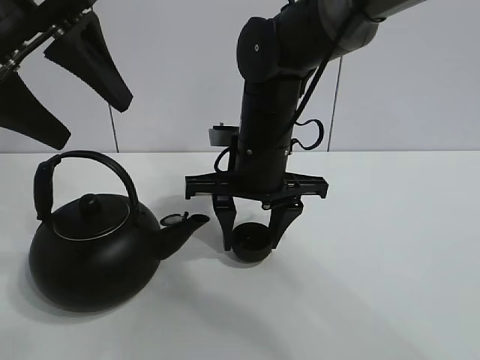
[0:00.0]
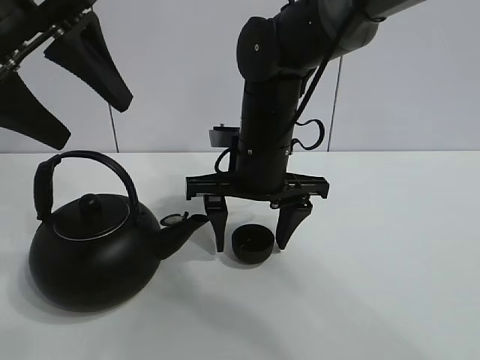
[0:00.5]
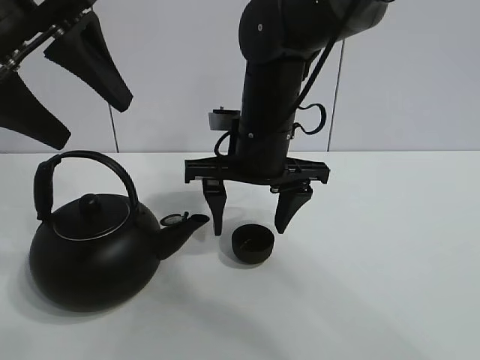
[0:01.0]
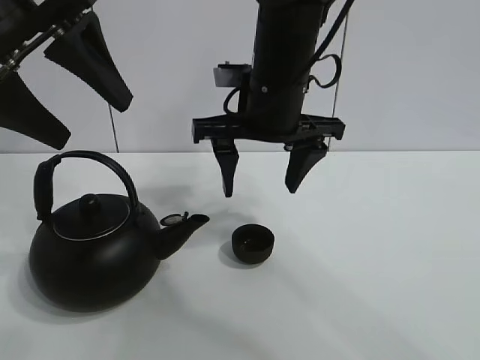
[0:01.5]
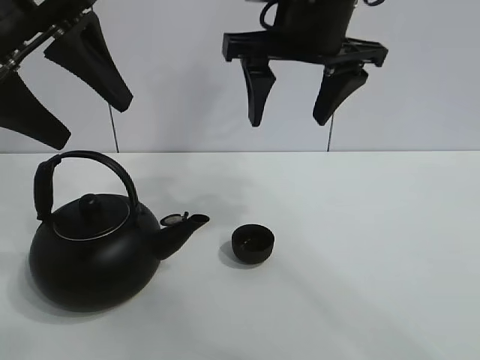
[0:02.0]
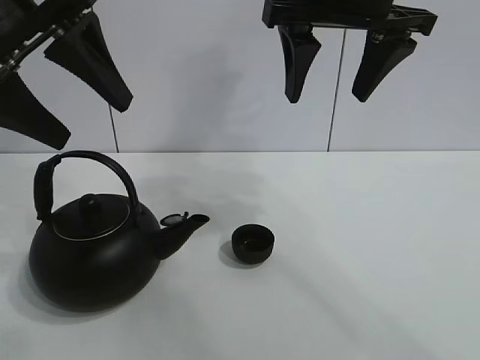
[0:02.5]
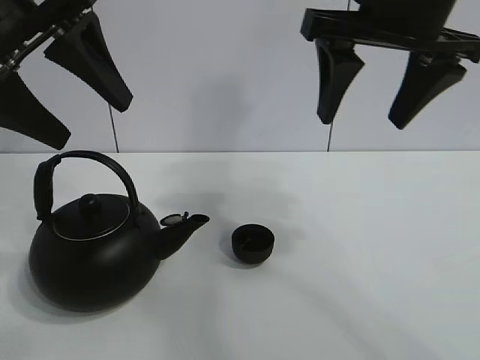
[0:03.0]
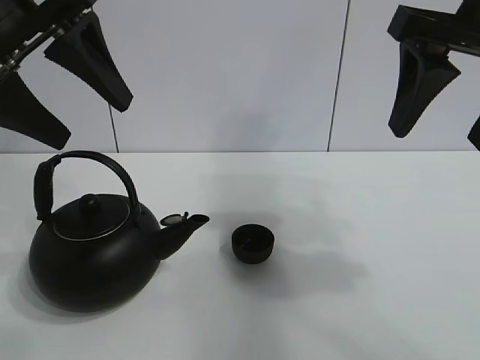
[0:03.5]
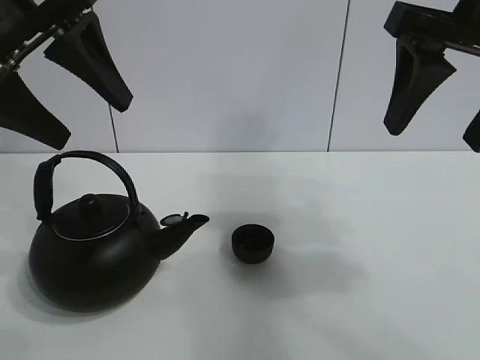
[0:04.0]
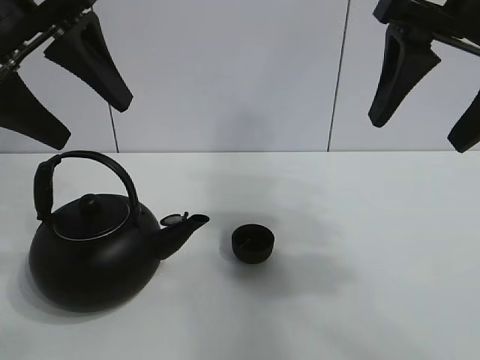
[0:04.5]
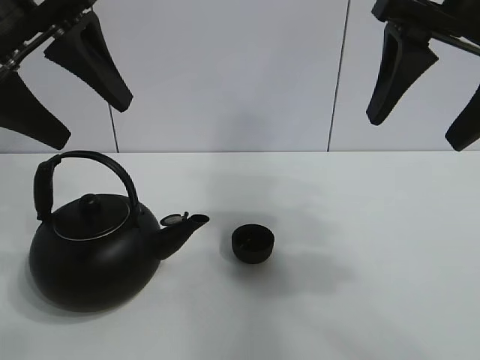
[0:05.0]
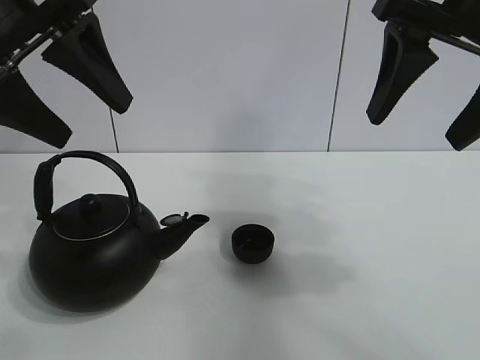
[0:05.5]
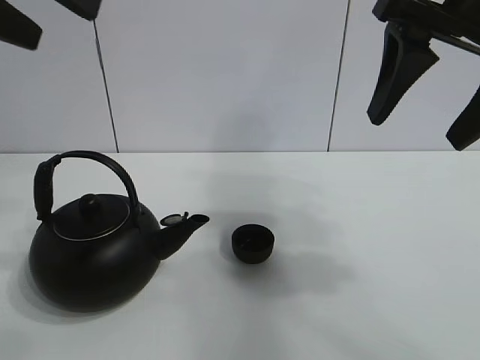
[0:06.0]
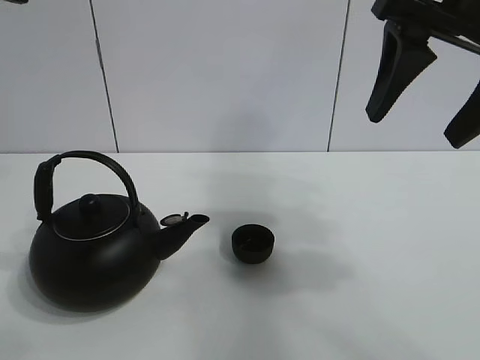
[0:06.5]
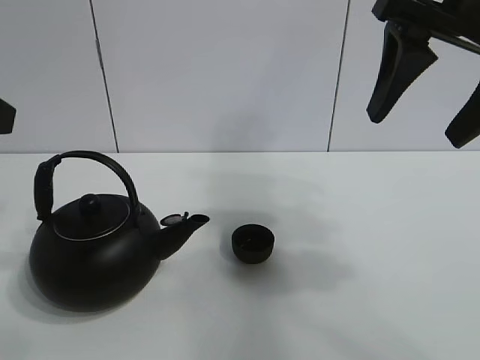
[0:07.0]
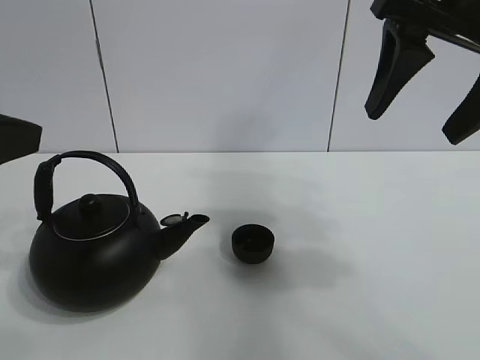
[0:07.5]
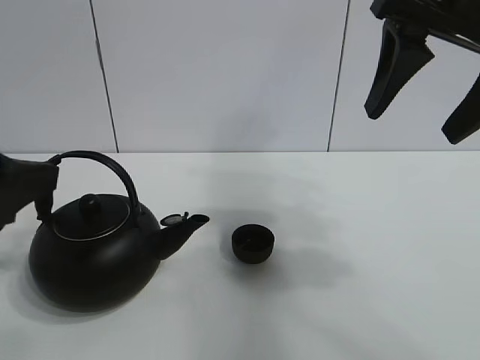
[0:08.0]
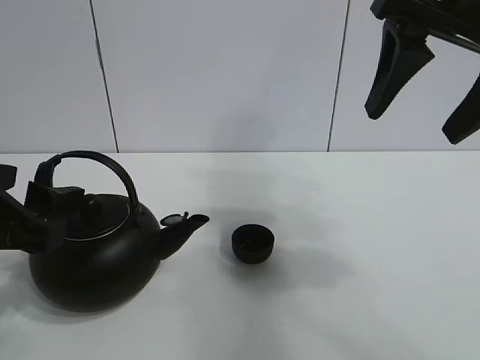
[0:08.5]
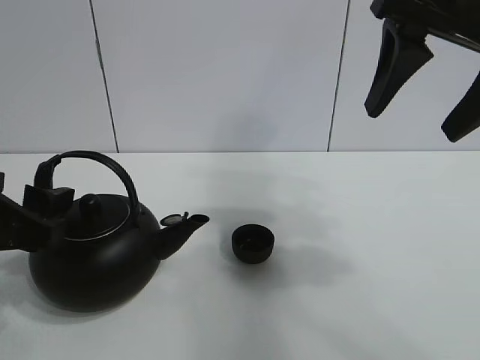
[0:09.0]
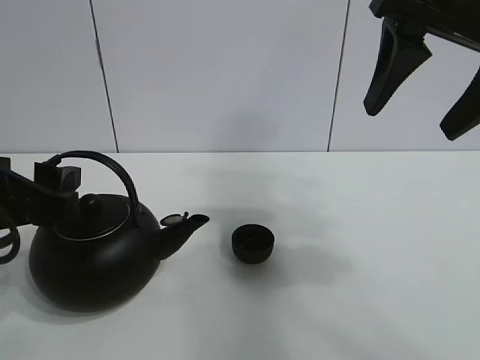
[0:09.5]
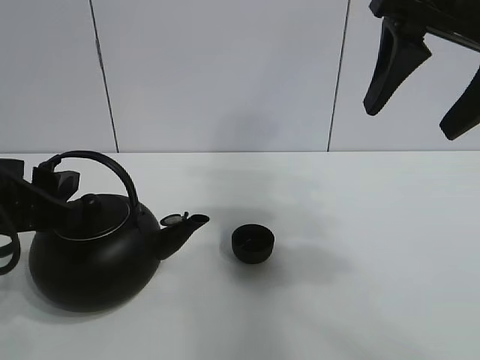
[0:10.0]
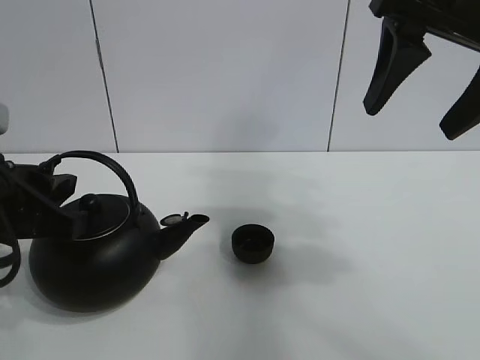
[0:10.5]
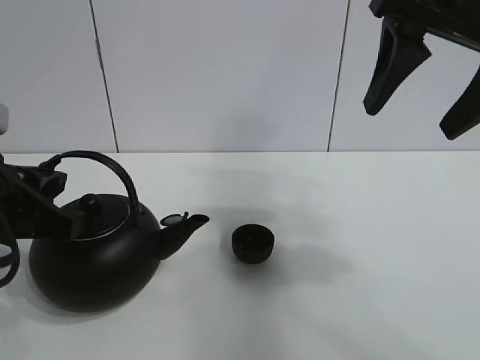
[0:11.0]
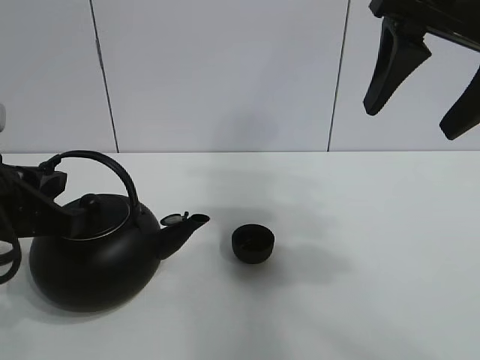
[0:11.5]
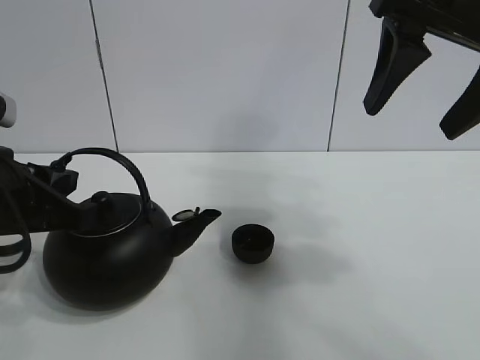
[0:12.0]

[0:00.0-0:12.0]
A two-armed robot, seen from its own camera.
Task of the whole recording: pour tea into the teacup.
0.0 to 2.0 s: The right gripper shifts about 15 cm upward, and opens its fingers.
2.0 to 4.0 s: The right gripper moves to the right and backward, about 15 cm.
4.0 to 6.0 s: The left gripper is displaced upward by roughly 5 cm.
6.0 to 8.0 s: The left gripper moves downward and backward, approximately 15 cm.
8.0 to 10.0 s: The left gripper is displaced downward by about 5 cm.
10.0 to 12.0 s: The left gripper closes.

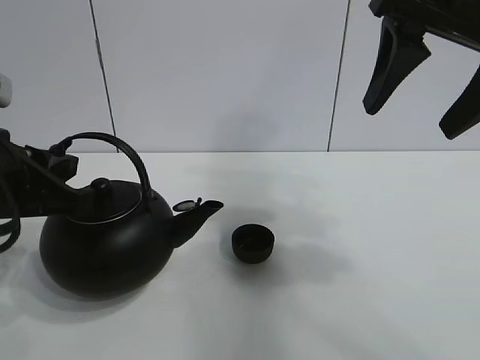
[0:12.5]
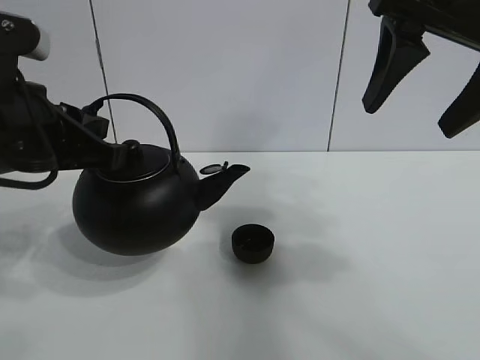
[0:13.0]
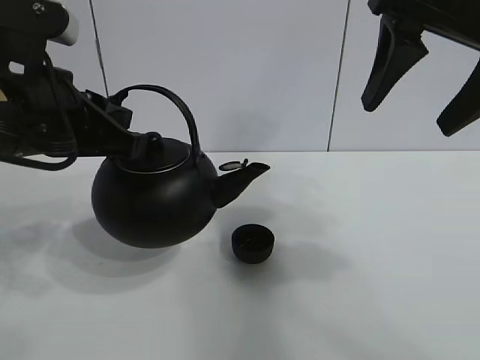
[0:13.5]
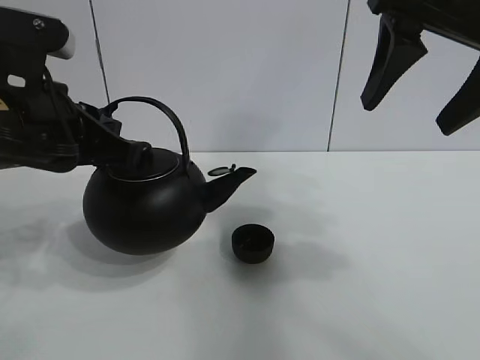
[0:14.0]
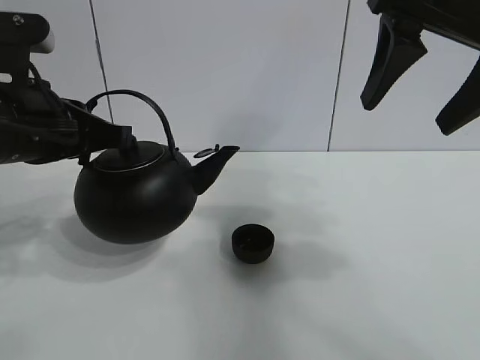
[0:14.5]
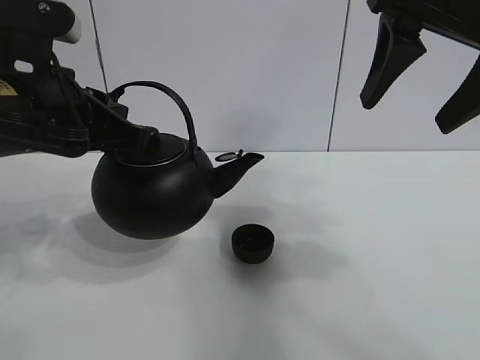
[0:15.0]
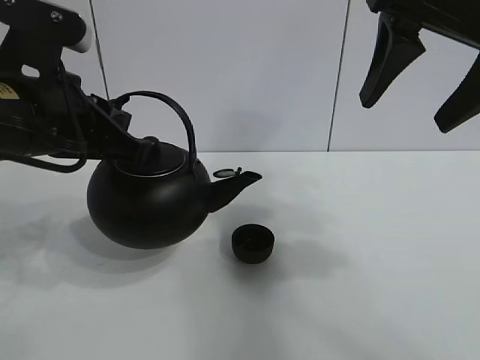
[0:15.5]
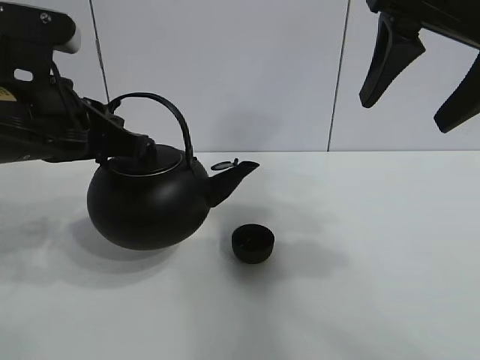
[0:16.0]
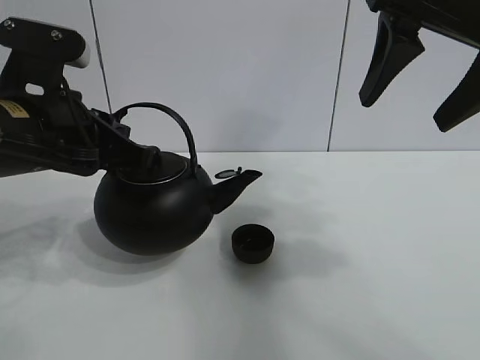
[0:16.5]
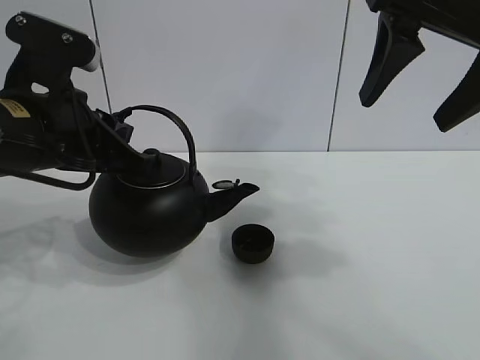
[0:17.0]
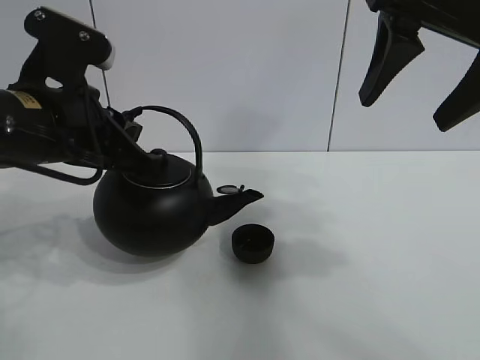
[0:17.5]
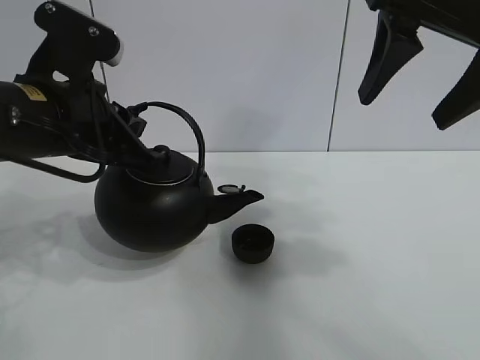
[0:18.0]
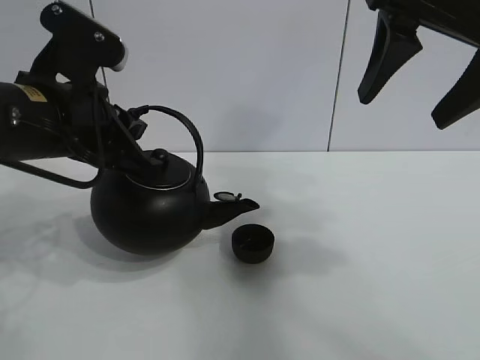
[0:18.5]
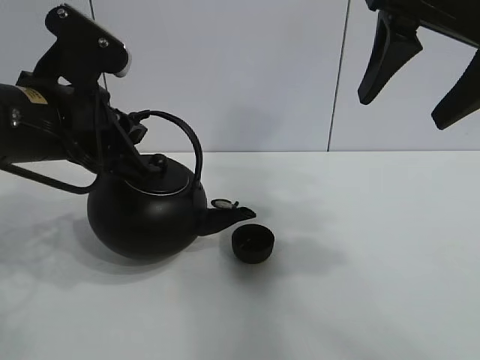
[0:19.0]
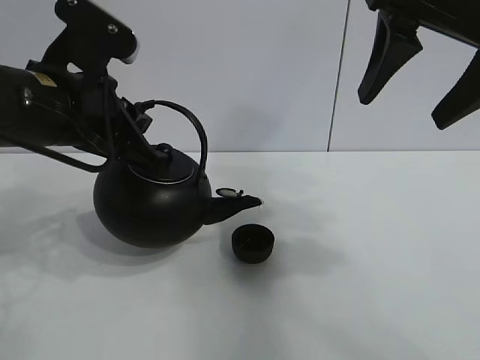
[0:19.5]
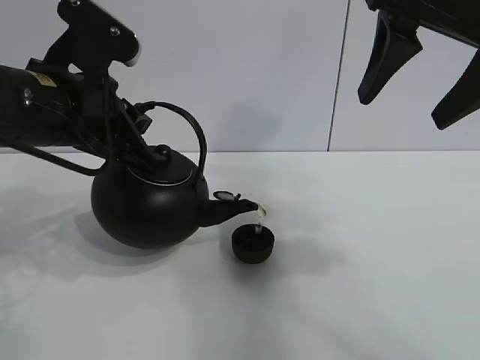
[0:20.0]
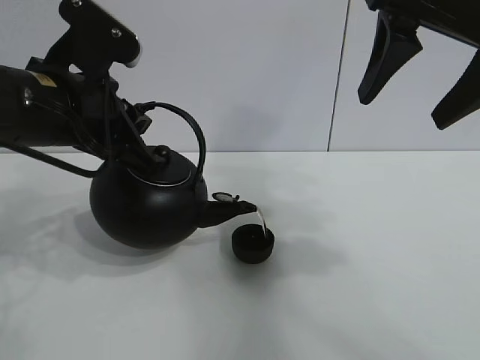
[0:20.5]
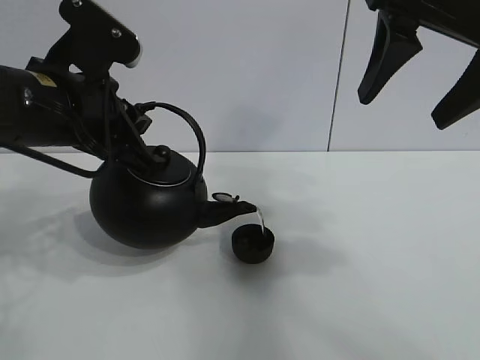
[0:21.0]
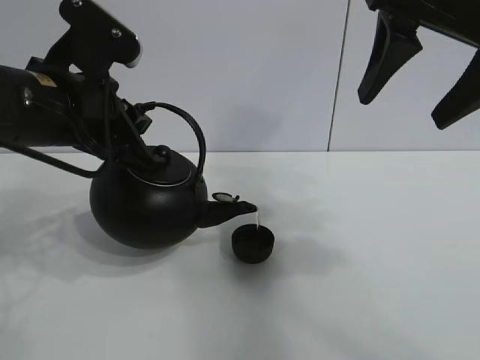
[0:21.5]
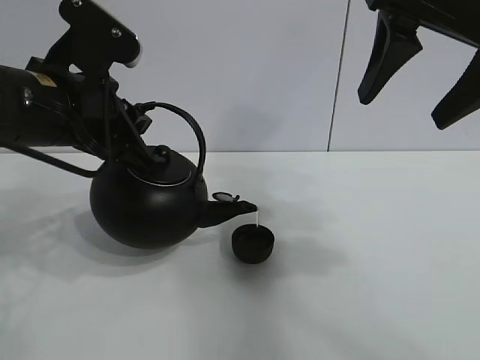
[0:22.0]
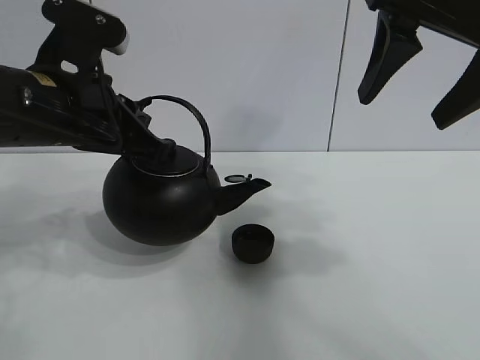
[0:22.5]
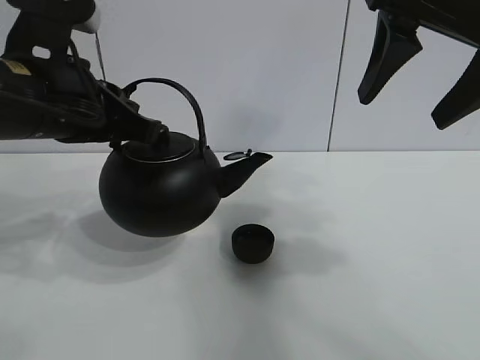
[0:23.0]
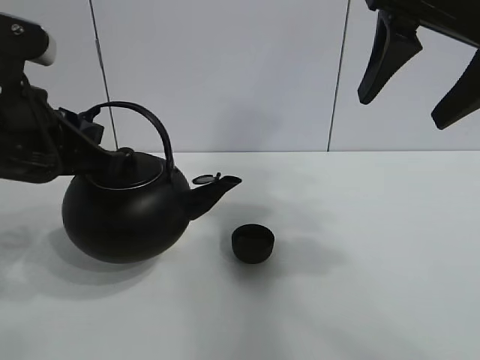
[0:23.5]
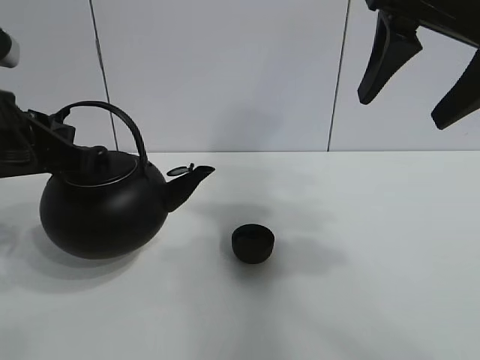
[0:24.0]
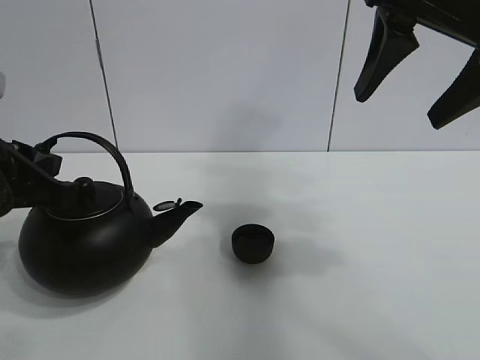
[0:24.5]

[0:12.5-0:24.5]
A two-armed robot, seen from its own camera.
Task of the whole recording: pour tea into the teacup.
Step, 13.0 to 22.0 s: Pour tea into the teacup with the left gripper.
12.5 to 14.5 s: The left gripper changes place by about 5 cm.
14.5 to 16.5 s: The grippers stay close to where they were, moving slightly.
16.5 to 18.5 s: The grippers move only a little.
18.5 to 20.5 s: The two grippers keep their place.
20.5 to 22.5 s: The grippers stay close to where they were, moving slightly.
22.5 to 24.5 s: The left gripper is displaced to the left and backward by approximately 10 cm.

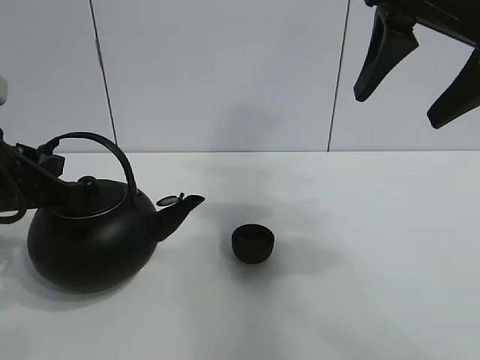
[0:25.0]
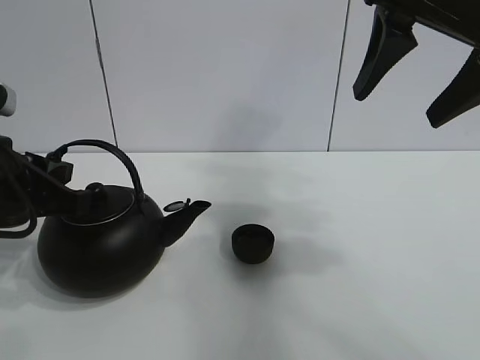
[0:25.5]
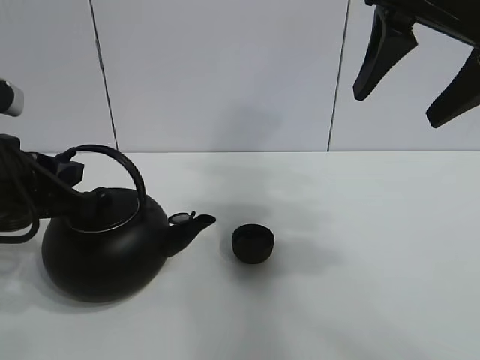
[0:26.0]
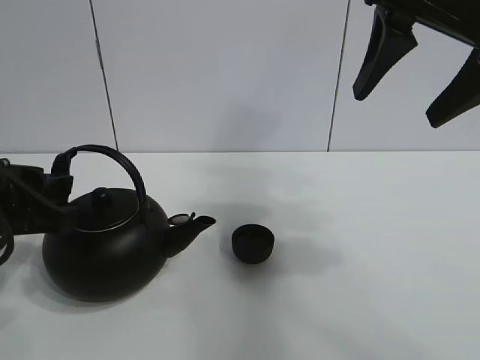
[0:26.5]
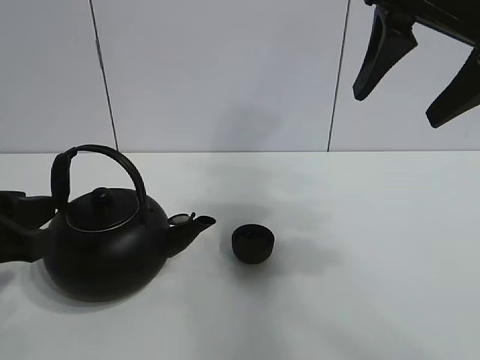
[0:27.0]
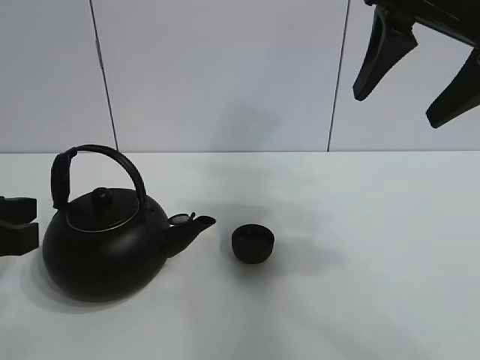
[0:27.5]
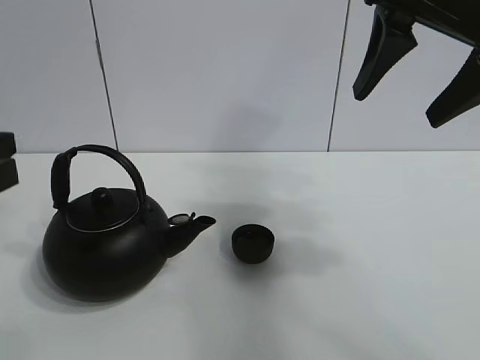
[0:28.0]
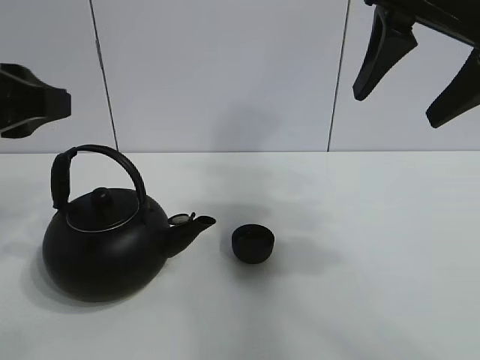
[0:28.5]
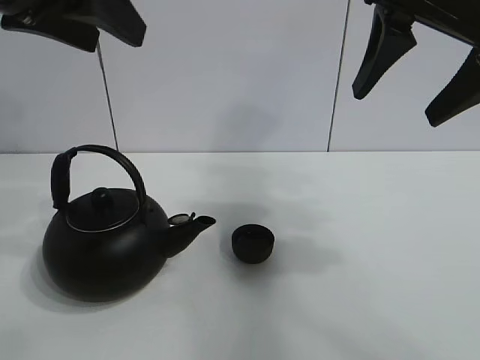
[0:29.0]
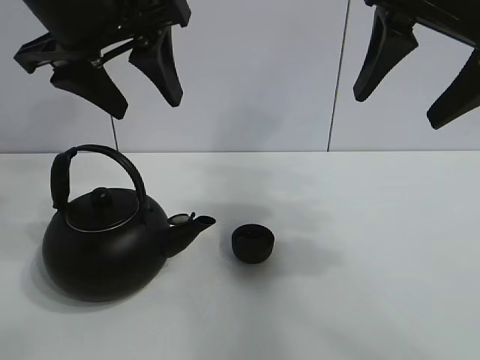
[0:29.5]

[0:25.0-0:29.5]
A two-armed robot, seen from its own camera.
Task of the whole recording: pour tea into the teacup.
25.0 to 27.0 s: The left gripper ends up approximately 5 cm from where it was, and opens.
27.0 to 29.5 s: The left gripper travels upward, forward and to the right by some 25 cm, and opens.
